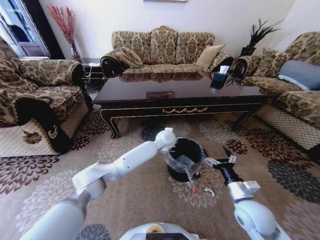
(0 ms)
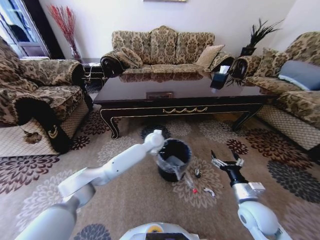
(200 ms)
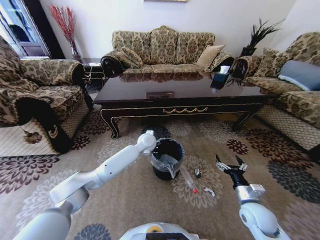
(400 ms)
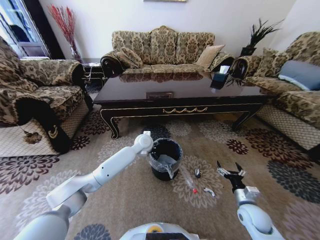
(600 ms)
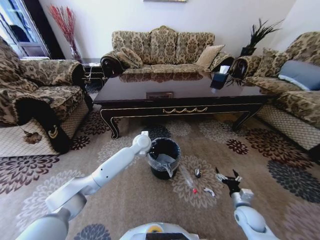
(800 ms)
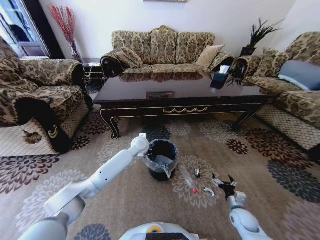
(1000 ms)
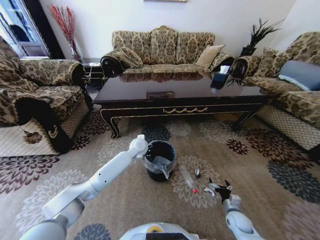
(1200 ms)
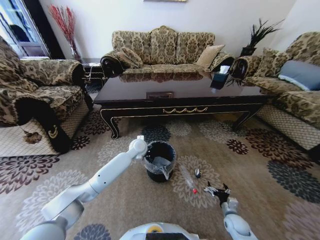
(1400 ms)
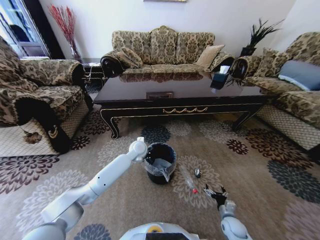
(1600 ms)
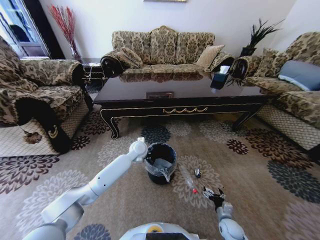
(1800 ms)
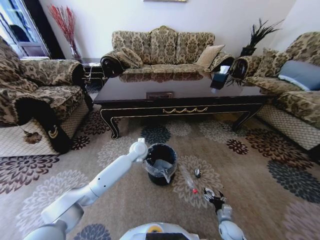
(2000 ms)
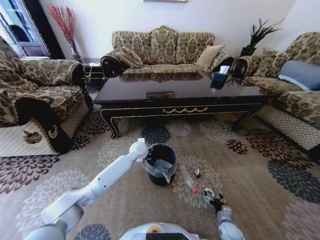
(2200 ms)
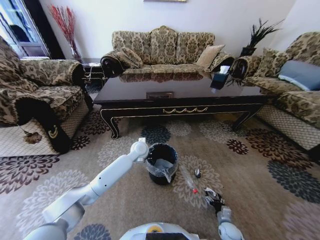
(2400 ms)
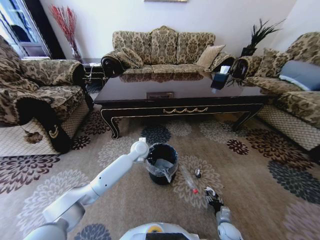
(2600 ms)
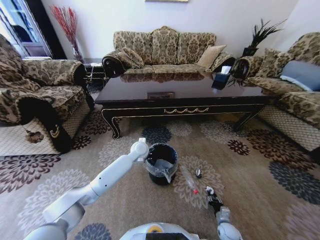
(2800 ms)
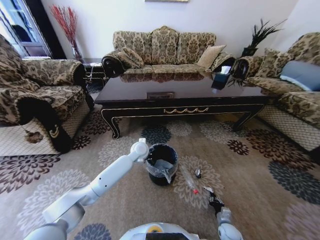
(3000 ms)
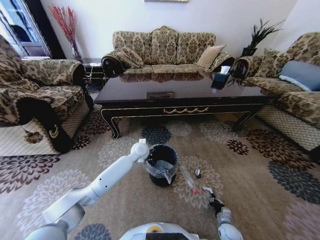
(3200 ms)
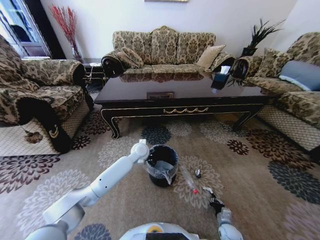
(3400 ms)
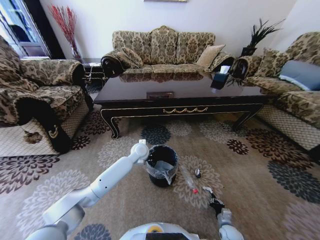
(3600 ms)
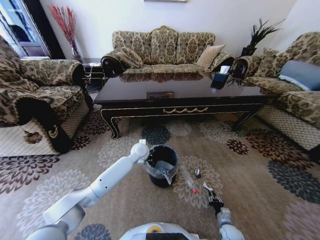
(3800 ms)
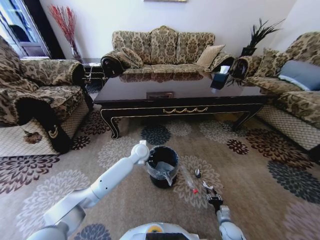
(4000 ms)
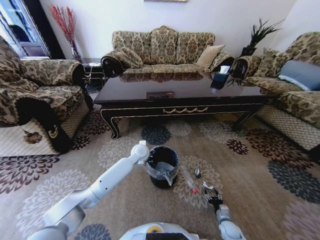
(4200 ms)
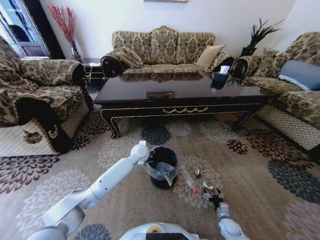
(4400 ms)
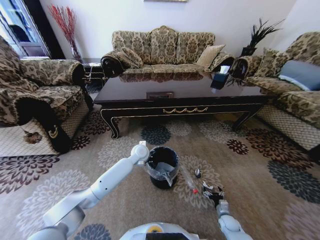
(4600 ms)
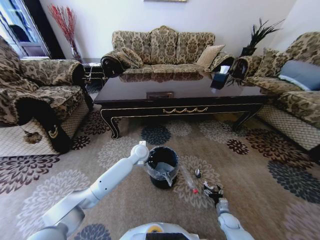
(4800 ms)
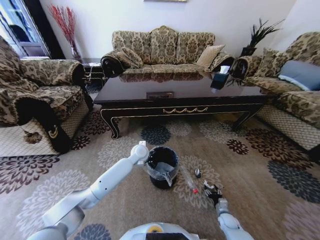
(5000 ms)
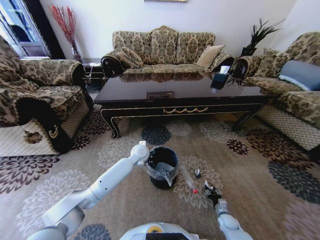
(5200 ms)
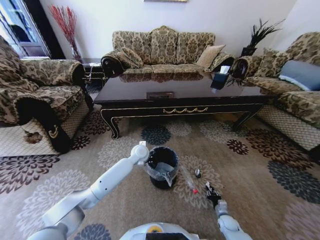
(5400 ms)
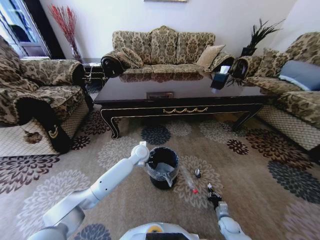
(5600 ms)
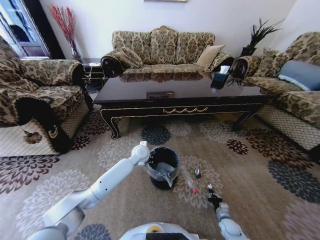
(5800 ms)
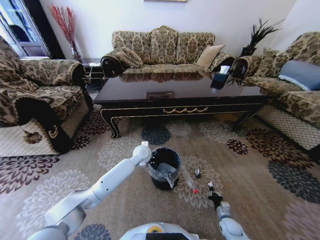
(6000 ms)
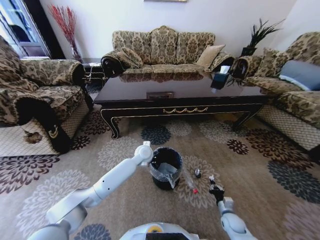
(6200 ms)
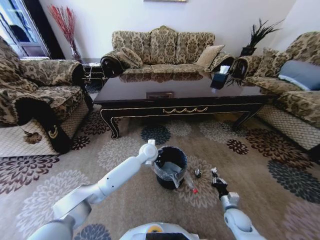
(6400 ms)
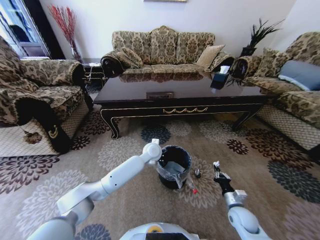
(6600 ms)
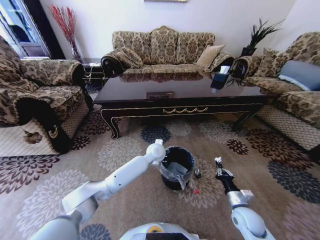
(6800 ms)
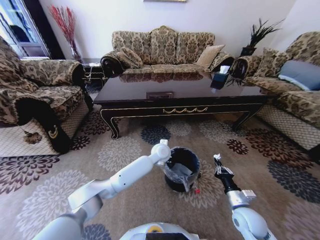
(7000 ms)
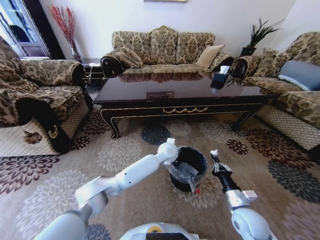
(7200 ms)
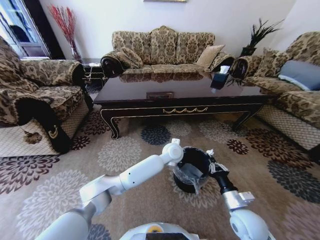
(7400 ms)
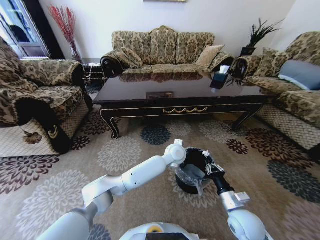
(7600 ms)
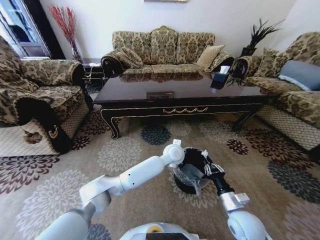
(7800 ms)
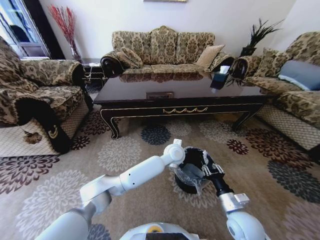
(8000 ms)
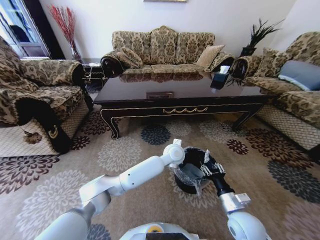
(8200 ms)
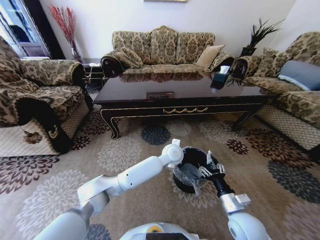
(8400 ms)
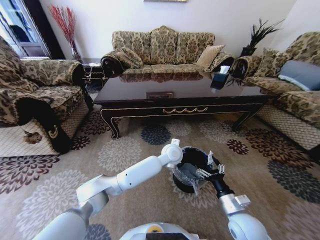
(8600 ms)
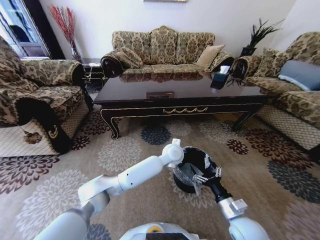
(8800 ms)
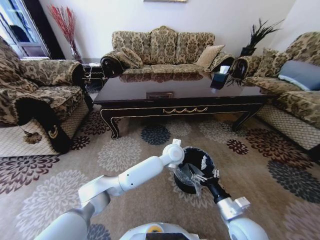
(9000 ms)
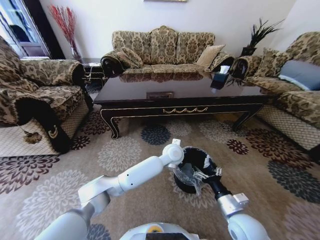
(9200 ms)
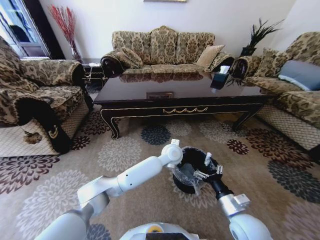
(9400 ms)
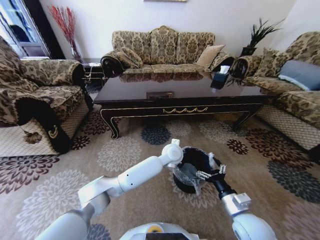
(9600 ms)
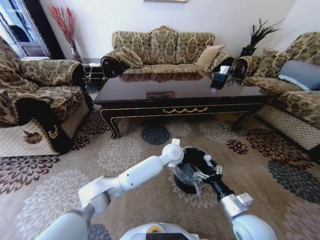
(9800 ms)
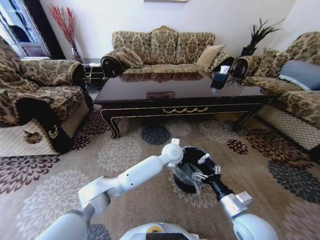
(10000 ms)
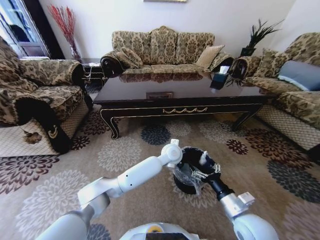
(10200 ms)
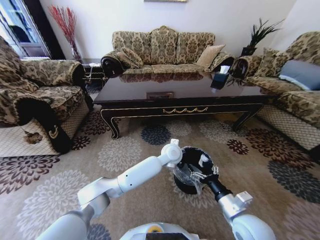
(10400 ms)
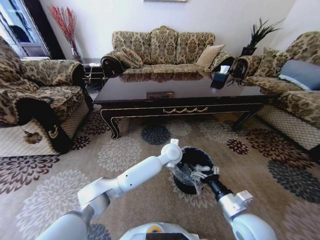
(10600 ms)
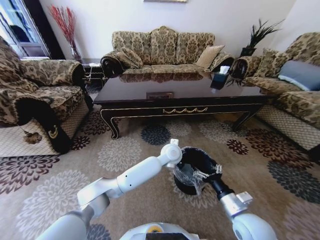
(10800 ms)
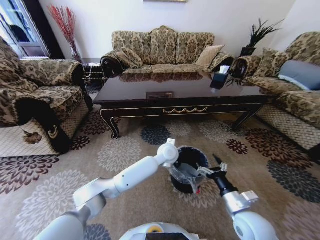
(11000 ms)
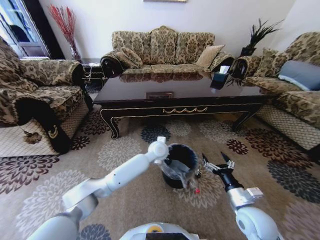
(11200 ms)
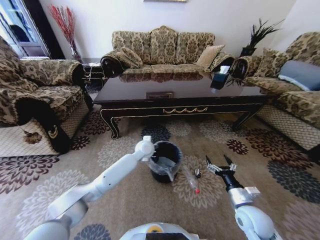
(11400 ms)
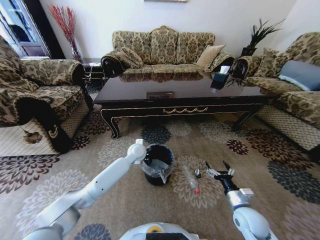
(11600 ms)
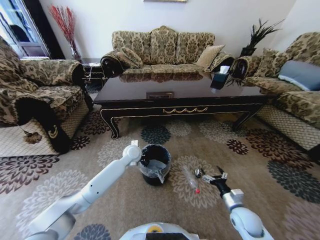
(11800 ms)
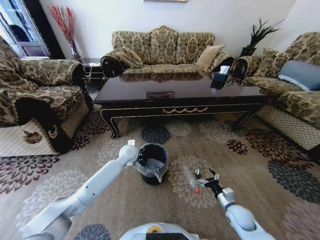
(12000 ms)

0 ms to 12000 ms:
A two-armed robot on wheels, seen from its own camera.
Task of the whole recording: Move to the front of the table and pick up the trash from the floor, then place it into the trash bin.
0 ms to 1600 ms: The left gripper goes some 15 cm to the left and downward. Meanwhile the right gripper moves downward, roughly 25 cm.
1600 ms to 3000 ms: The right gripper travels downward by about 5 cm, and closes up.
3000 ms to 4400 ms: The right gripper opens.
4400 ms to 6000 ms: The right gripper closes its fingers.
6000 ms to 7600 ms: The right gripper is displaced upward by about 25 cm. The left gripper goes about 15 cm to the right.
7600 ms to 9000 ms: The right gripper opens its fingers.
9000 ms to 10400 ms: There are only small adjustments of the grippers.
10400 ms to 12000 ms: The right gripper shifts approximately 20 cm downward and to the right. The left gripper heads to the left, covering about 20 cm.

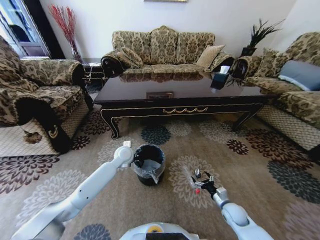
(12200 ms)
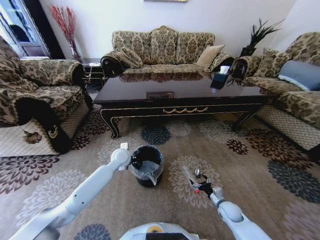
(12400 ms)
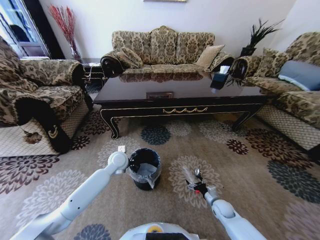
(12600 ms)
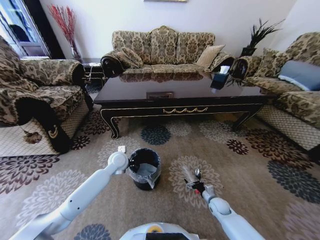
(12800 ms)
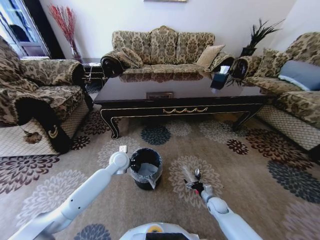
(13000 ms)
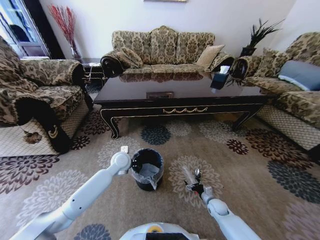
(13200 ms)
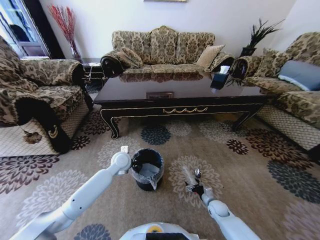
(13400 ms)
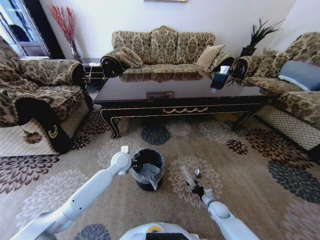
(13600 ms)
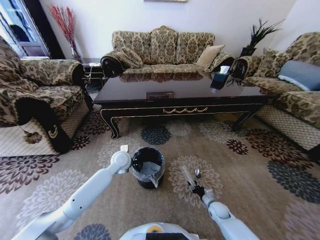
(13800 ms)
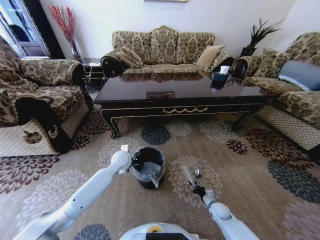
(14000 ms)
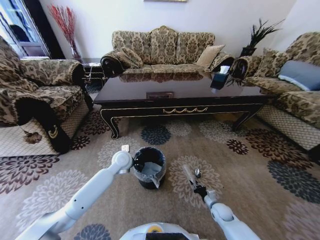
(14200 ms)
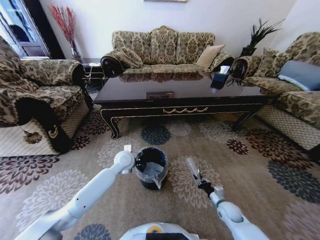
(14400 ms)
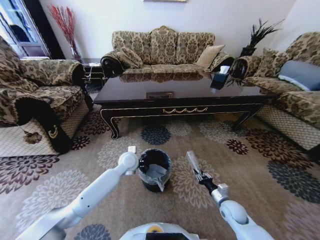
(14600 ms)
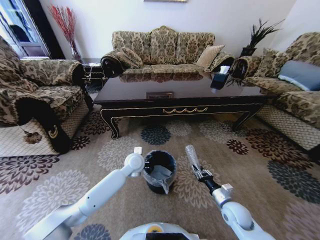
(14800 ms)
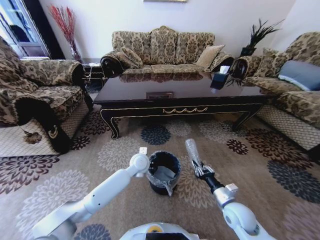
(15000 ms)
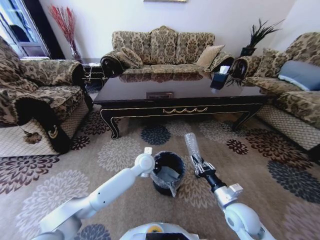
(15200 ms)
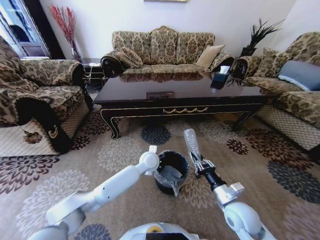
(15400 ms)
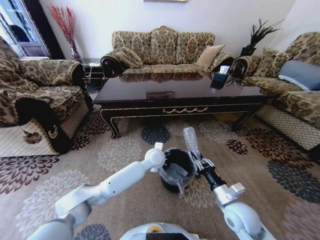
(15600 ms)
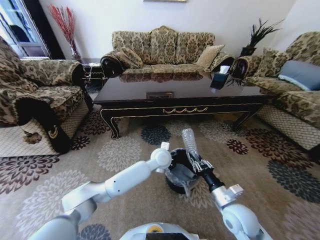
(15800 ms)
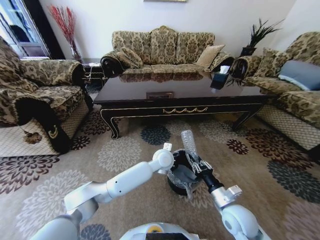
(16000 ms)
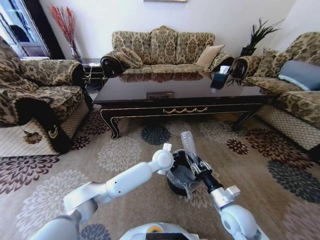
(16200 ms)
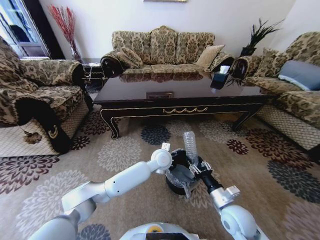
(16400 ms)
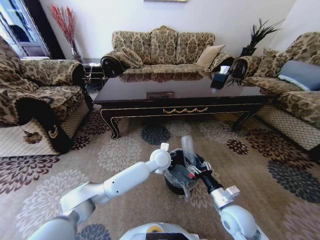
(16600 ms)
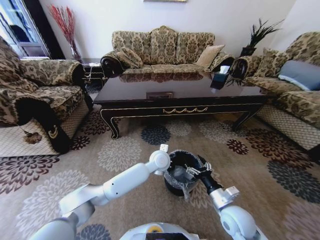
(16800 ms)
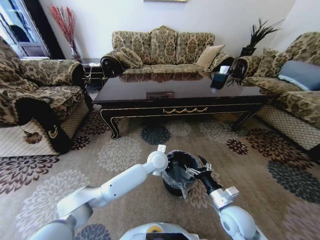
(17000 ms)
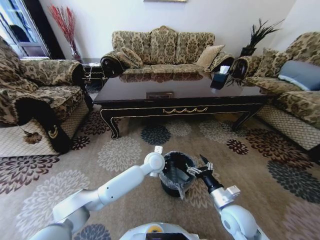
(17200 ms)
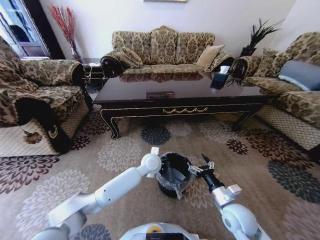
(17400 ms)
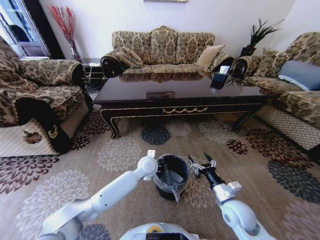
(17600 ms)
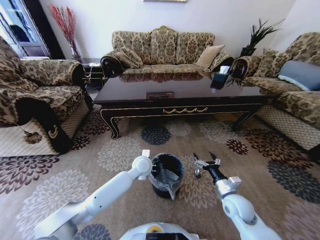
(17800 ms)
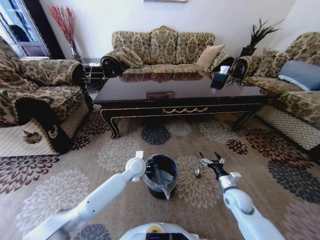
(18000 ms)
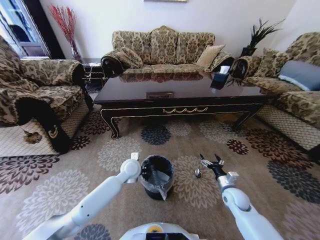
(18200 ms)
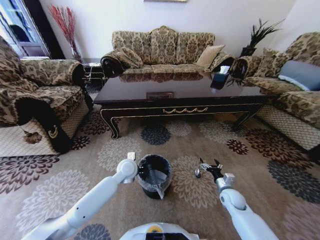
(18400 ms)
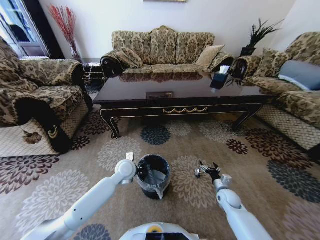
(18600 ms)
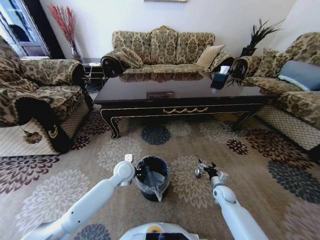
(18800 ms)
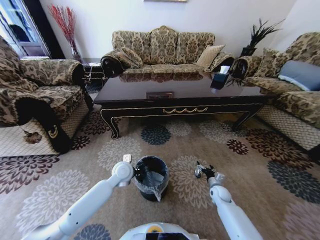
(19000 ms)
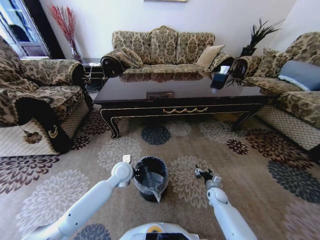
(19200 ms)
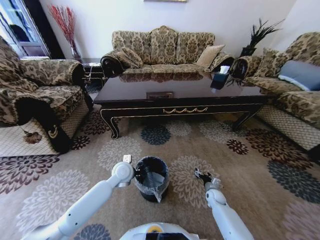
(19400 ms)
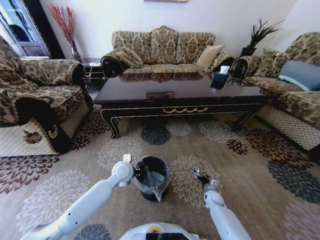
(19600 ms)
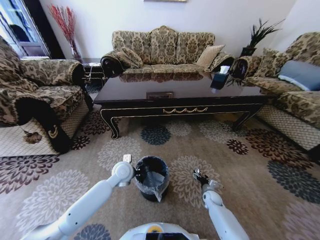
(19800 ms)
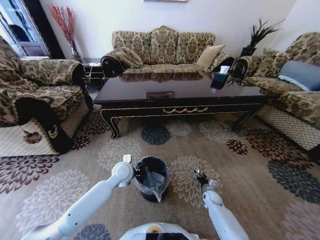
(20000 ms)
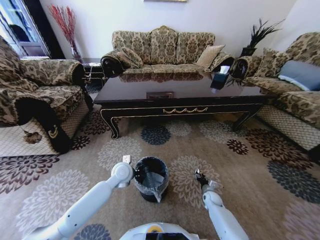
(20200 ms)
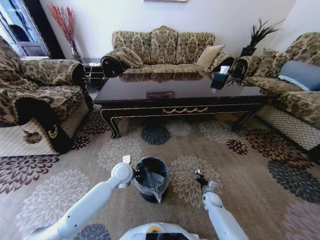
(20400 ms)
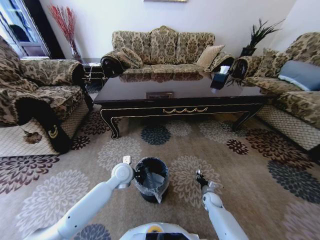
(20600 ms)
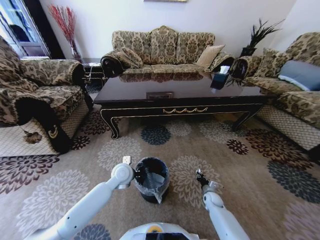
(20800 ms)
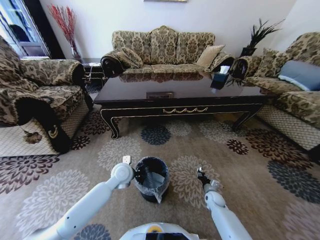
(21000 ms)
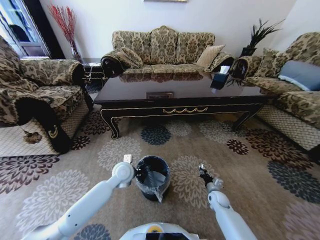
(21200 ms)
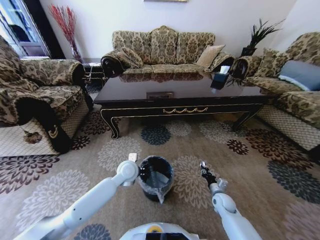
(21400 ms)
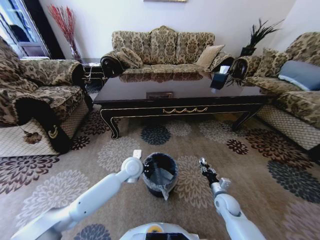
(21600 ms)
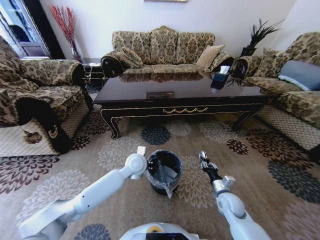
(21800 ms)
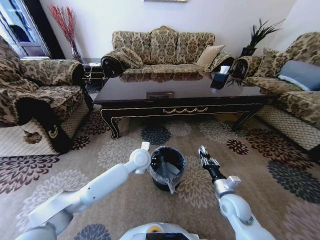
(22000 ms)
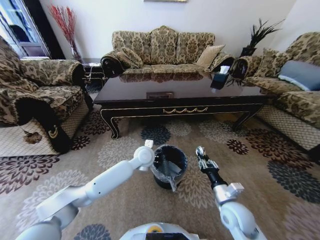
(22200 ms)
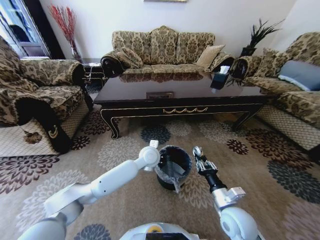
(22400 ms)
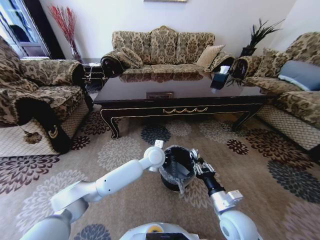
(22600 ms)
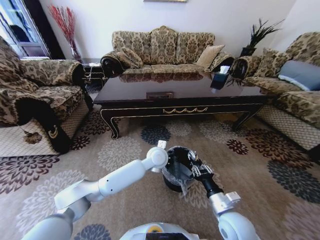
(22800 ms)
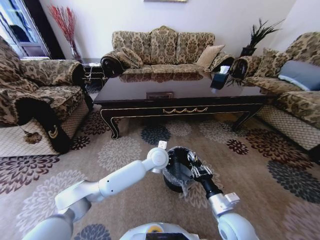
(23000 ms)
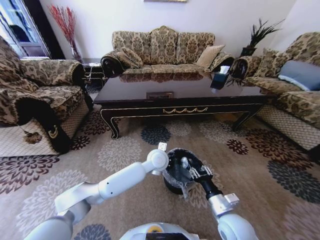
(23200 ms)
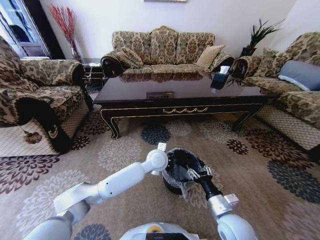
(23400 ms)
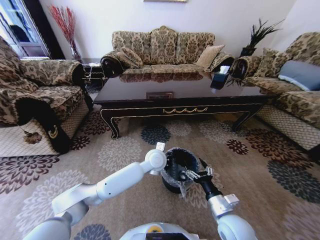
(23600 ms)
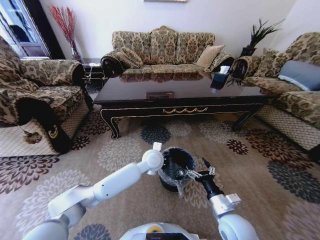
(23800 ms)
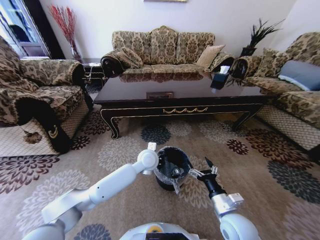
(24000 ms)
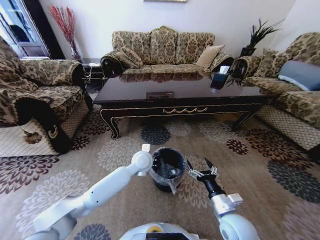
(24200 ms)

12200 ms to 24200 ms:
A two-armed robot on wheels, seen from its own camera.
Task of the whole recording: Move to the front of the table and pick up the trash from the floor, then place it into the trash bin.
12200 ms to 13800 ms: The right gripper moves downward, approximately 10 cm, and closes its fingers.
13800 ms to 15200 ms: The right gripper heads upward, covering roughly 20 cm. Meanwhile the left gripper moves to the right, approximately 10 cm.
15200 ms to 16600 ms: The right gripper opens its fingers. The left gripper moves to the right, some 5 cm.
16600 ms to 18200 ms: The left gripper shifts about 15 cm to the left; the right gripper heads forward, to the right and downward, covering approximately 15 cm.
18200 ms to 19800 ms: The right gripper shifts roughly 15 cm downward.
19800 ms to 21200 ms: The right gripper shifts by some 5 cm, and closes its fingers.
21200 ms to 22600 ms: The left gripper travels to the right and upward by about 15 cm; the right gripper travels upward, backward and to the left by roughly 25 cm.
22600 ms to 24200 ms: The left gripper travels to the left by approximately 5 cm; the right gripper opens its fingers.
